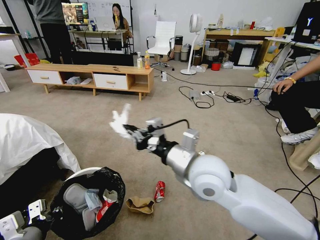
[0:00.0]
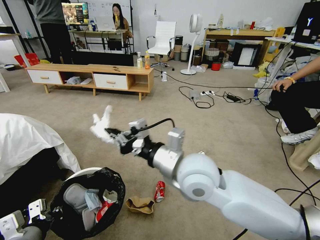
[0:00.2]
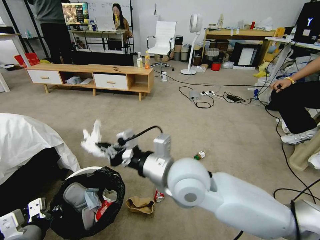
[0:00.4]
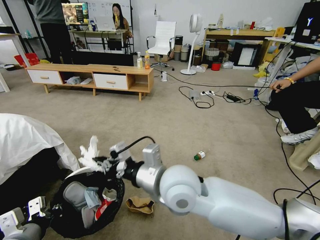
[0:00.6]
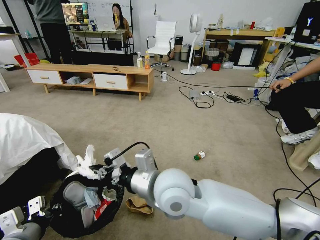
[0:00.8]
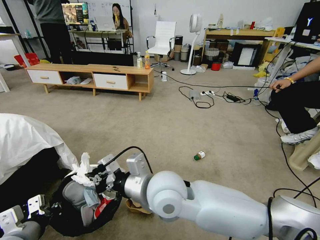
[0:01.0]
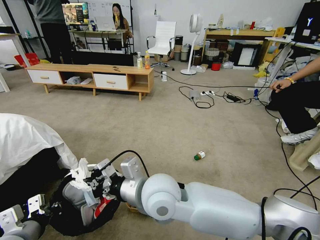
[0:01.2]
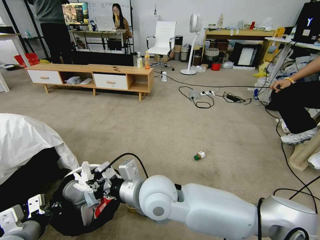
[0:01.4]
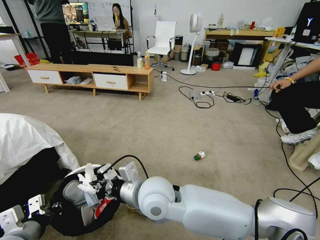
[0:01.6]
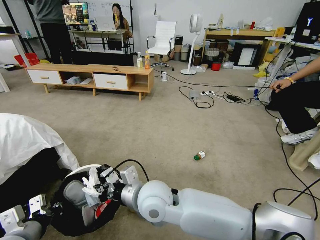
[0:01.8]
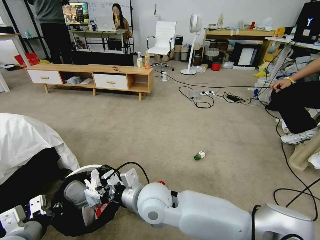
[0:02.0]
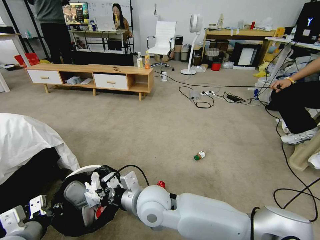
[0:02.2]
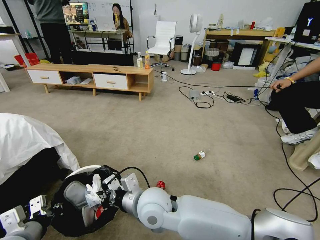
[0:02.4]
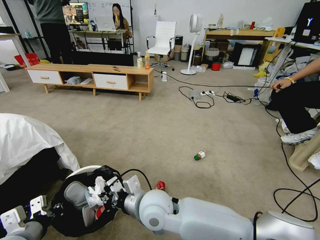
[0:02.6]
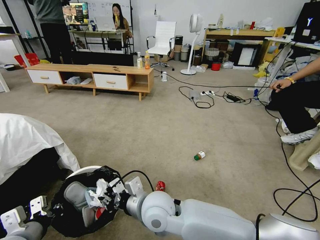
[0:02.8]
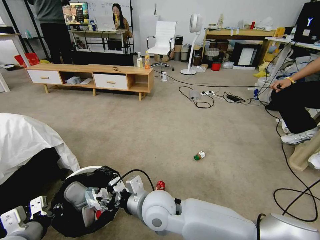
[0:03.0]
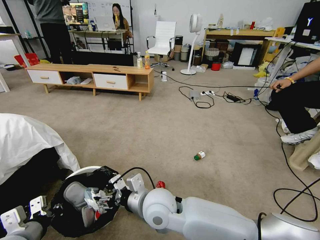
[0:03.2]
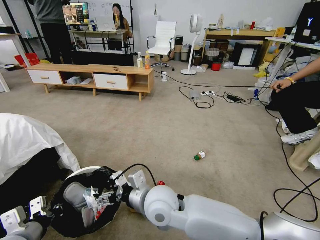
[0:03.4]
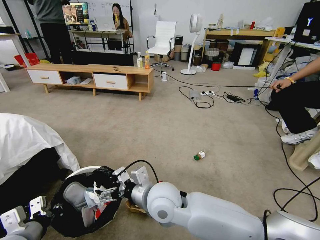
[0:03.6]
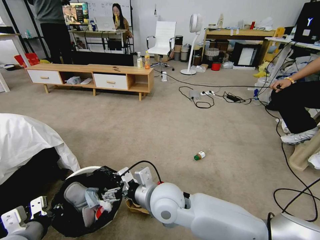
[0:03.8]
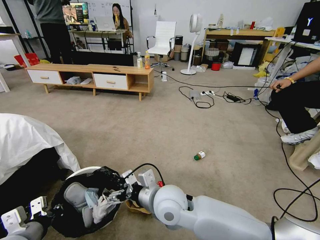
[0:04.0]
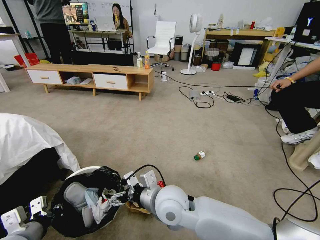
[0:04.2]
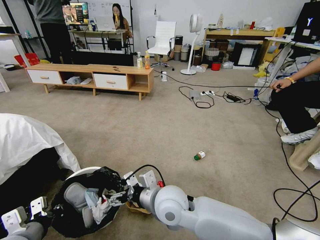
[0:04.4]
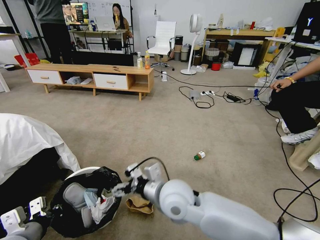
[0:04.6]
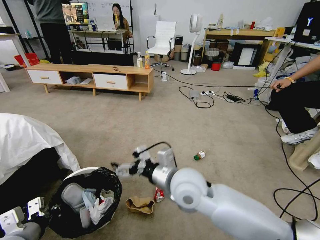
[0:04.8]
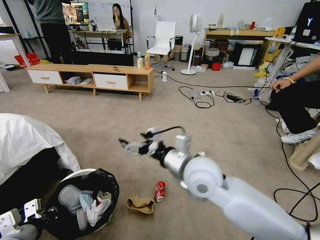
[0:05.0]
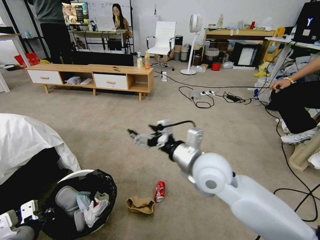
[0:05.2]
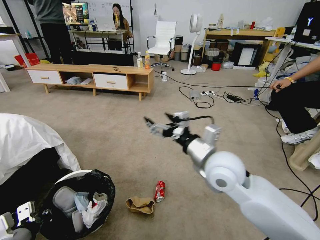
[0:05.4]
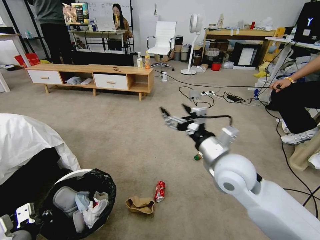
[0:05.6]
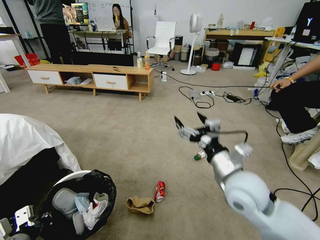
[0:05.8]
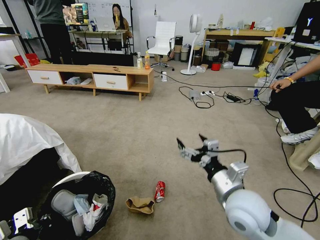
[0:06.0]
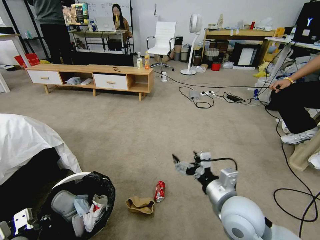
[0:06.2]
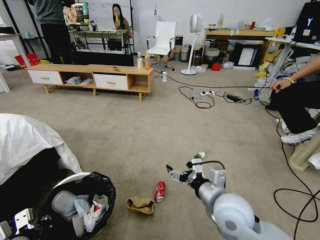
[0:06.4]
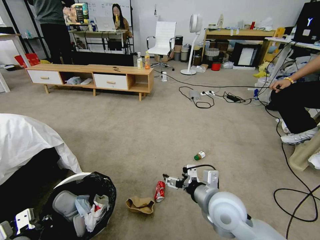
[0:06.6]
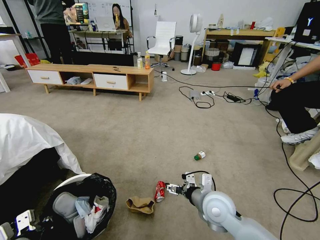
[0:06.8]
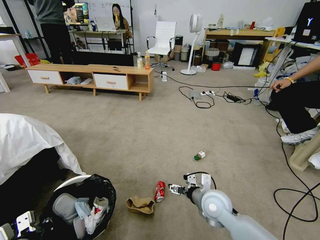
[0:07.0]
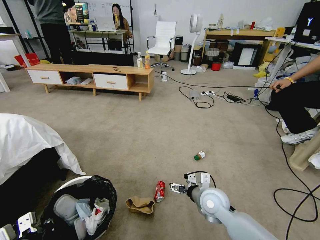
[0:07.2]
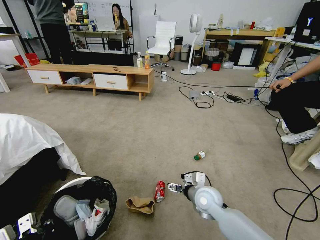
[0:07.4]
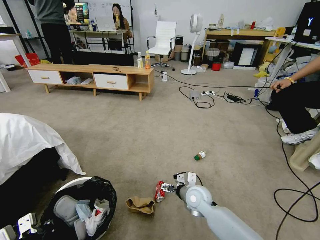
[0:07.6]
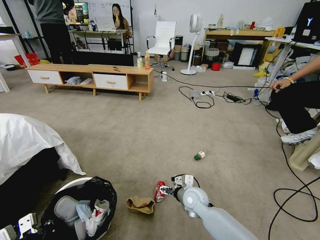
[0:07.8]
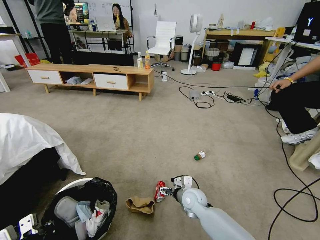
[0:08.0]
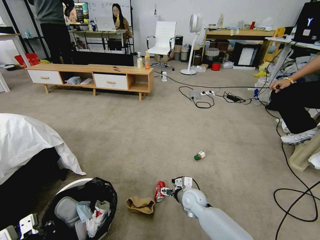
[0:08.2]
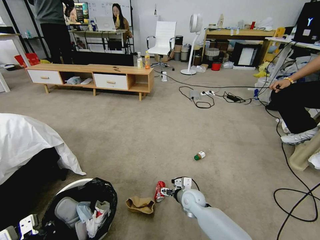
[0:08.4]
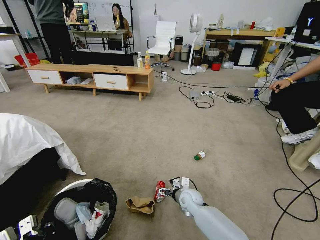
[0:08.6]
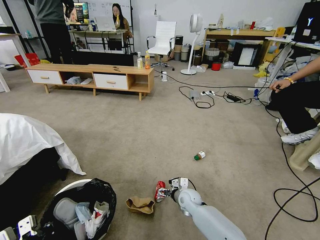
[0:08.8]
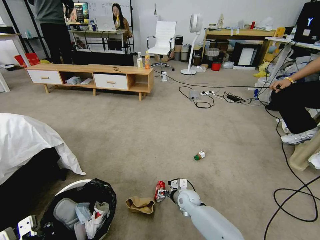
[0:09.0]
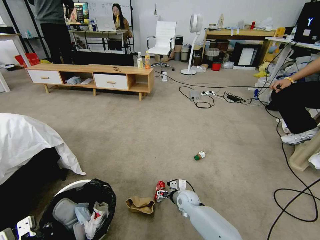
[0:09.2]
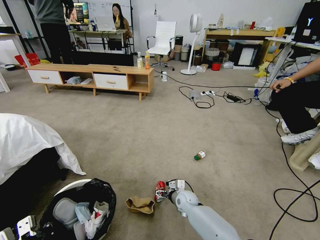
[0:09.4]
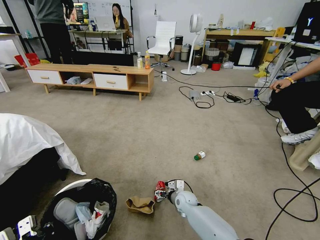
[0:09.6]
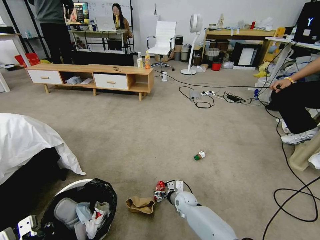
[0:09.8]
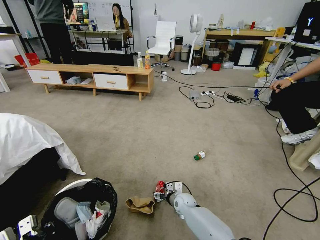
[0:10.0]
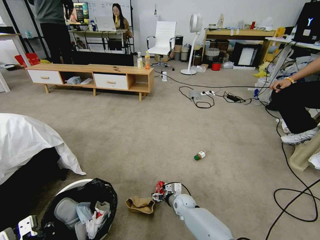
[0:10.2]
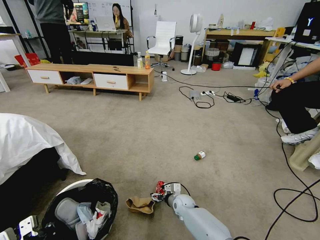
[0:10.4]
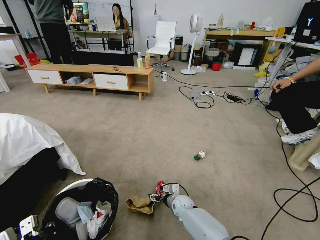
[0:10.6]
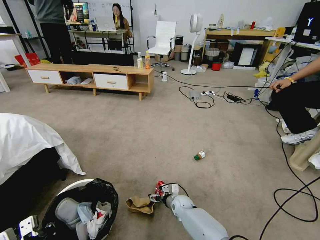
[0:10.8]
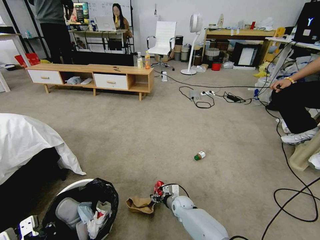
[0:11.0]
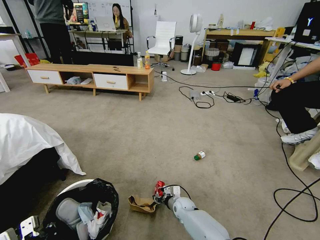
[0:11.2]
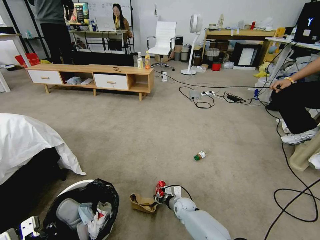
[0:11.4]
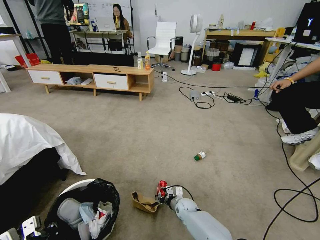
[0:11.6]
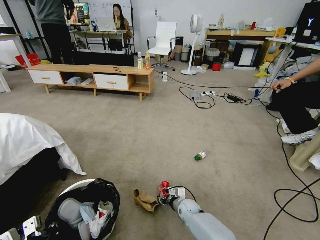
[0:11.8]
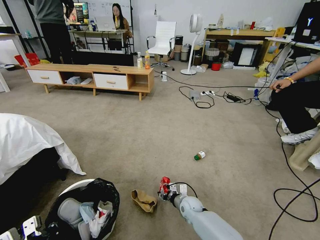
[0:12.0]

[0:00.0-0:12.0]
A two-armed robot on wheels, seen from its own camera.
Task of the whole recording: Pick up the trash bin and place the garbage on the floor into it.
0:00.0 to 0:01.6: The right gripper heads to the left and downward, covering some 15 cm.
0:01.6 to 0:03.0: The right gripper travels downward by approximately 5 cm, and opens.
0:03.0 to 0:04.4: The right gripper opens.
0:04.4 to 0:06.0: The right gripper moves to the right, roughly 20 cm.
0:06.0 to 0:07.6: The right gripper travels downward and forward by some 20 cm.
0:07.6 to 0:09.0: The right gripper shifts about 10 cm downward.
0:09.0 to 0:10.4: The right gripper shifts about 5 cm downward.
0:10.4 to 0:12.0: The right gripper closes.

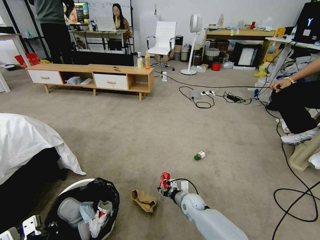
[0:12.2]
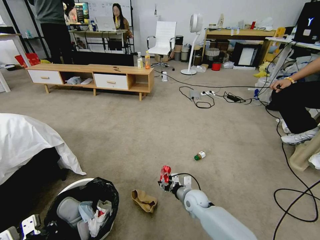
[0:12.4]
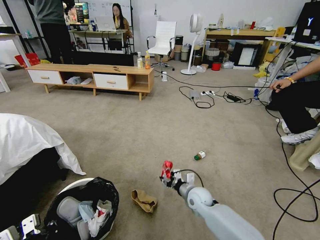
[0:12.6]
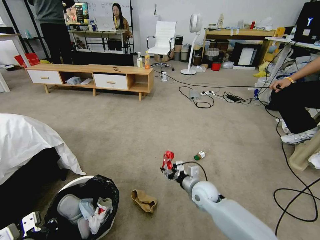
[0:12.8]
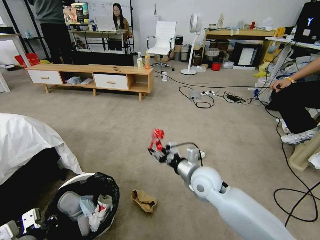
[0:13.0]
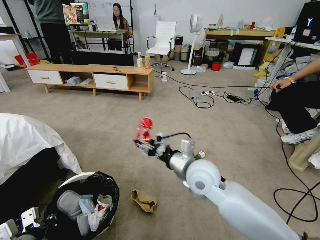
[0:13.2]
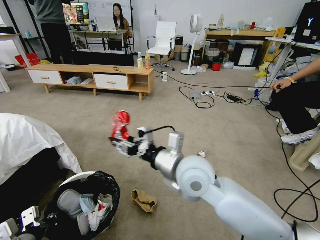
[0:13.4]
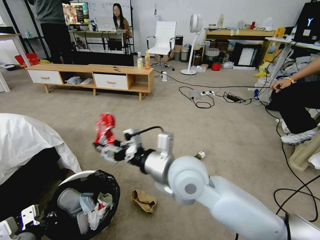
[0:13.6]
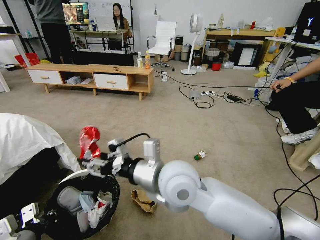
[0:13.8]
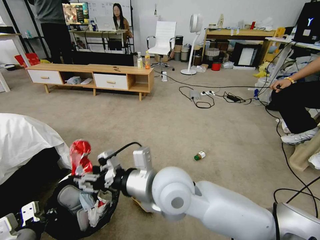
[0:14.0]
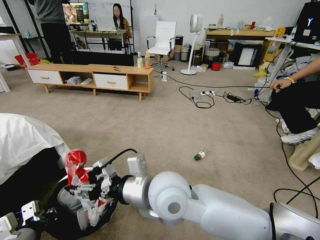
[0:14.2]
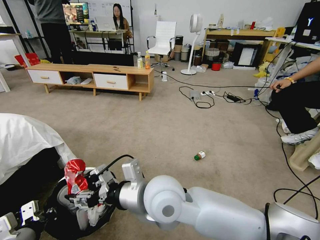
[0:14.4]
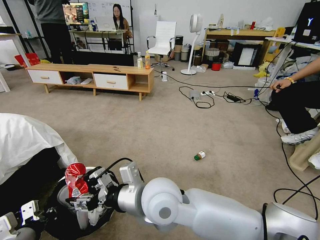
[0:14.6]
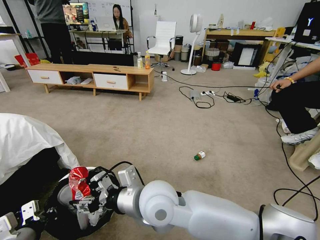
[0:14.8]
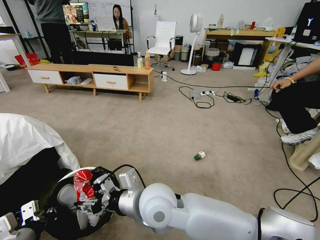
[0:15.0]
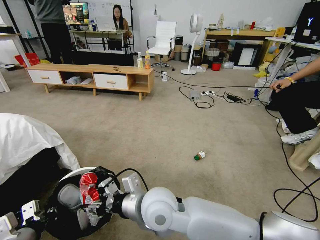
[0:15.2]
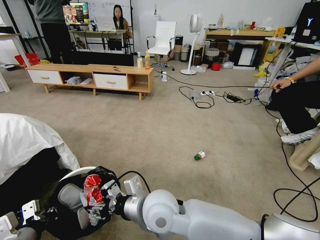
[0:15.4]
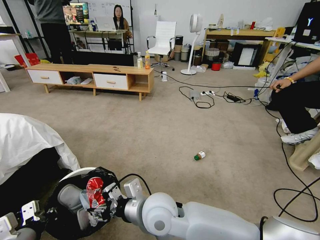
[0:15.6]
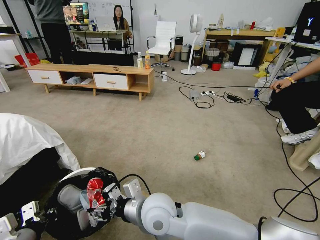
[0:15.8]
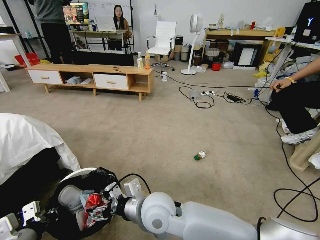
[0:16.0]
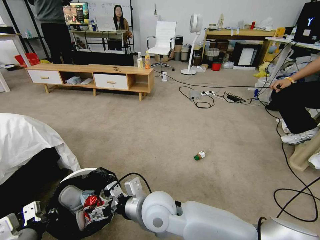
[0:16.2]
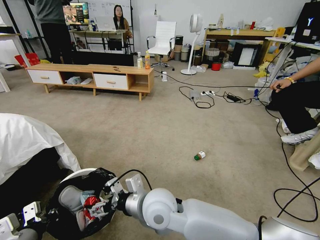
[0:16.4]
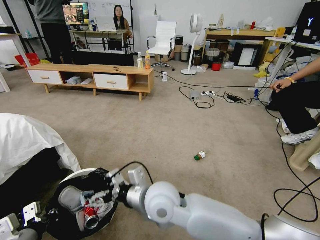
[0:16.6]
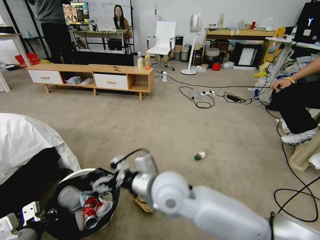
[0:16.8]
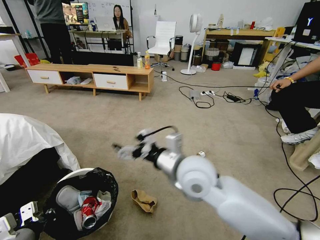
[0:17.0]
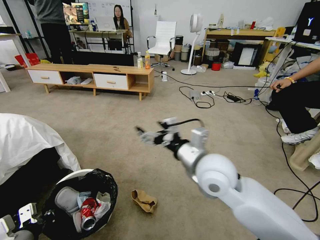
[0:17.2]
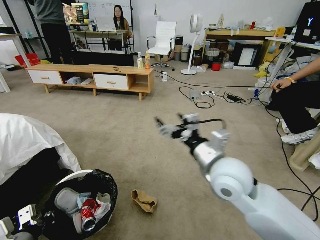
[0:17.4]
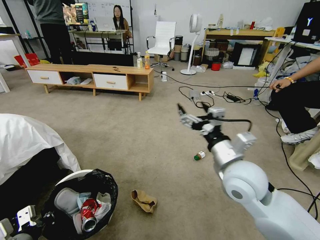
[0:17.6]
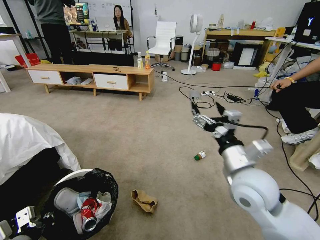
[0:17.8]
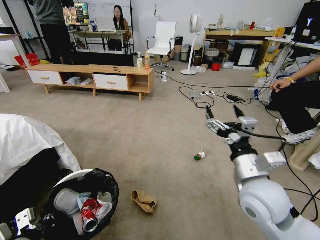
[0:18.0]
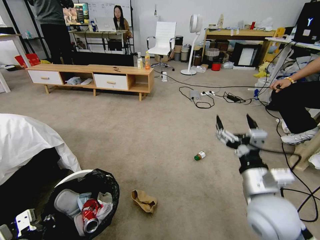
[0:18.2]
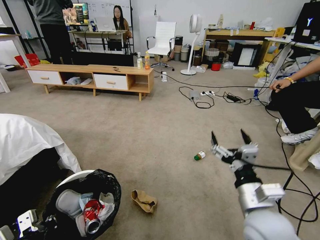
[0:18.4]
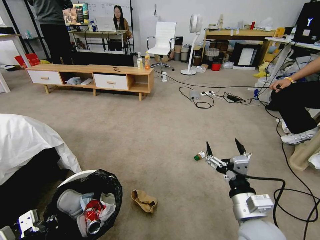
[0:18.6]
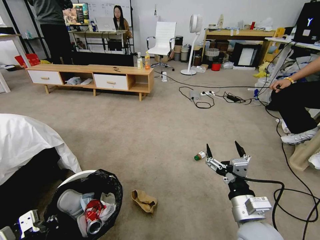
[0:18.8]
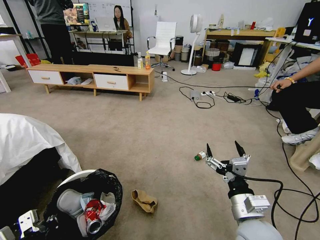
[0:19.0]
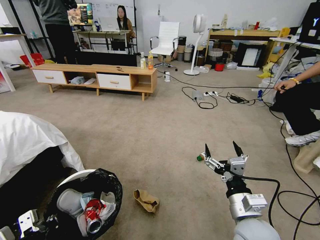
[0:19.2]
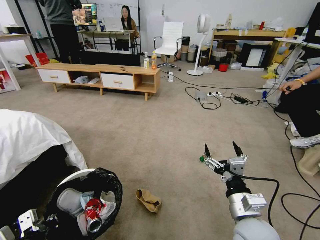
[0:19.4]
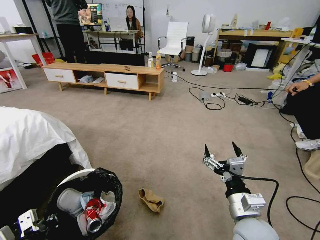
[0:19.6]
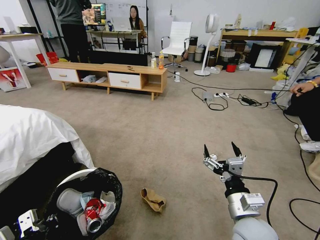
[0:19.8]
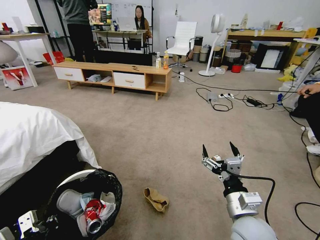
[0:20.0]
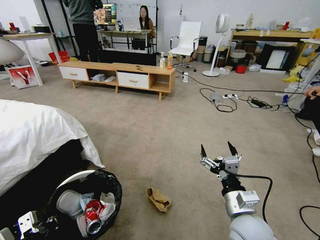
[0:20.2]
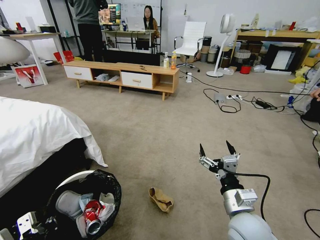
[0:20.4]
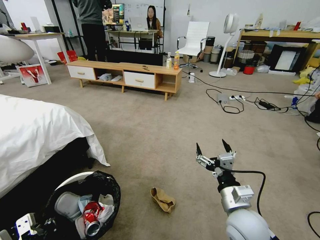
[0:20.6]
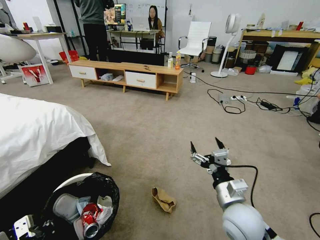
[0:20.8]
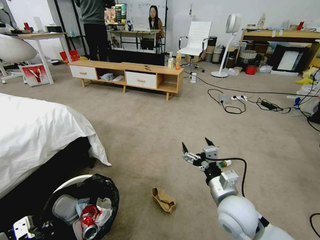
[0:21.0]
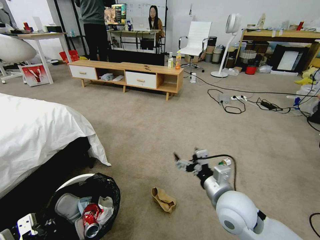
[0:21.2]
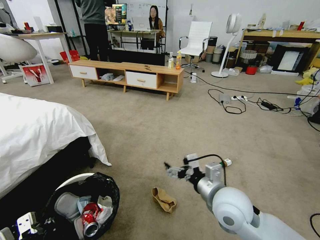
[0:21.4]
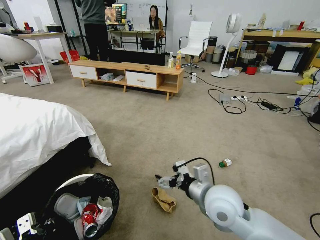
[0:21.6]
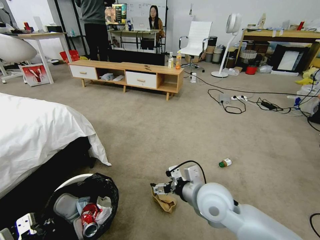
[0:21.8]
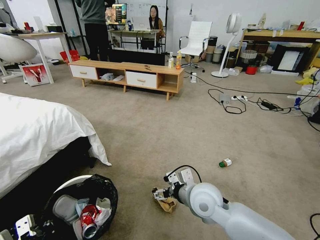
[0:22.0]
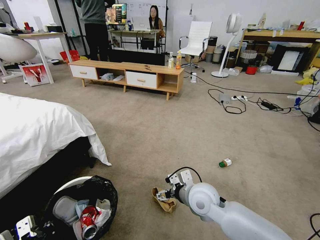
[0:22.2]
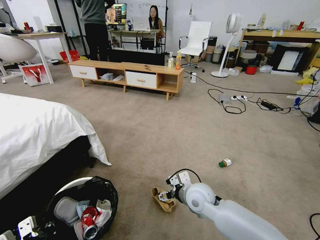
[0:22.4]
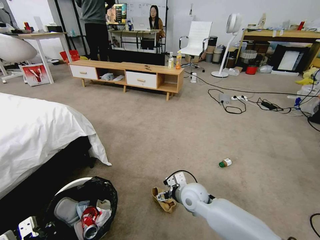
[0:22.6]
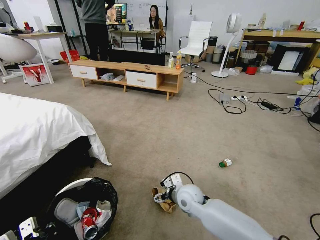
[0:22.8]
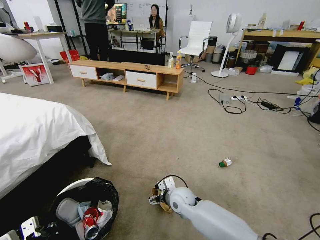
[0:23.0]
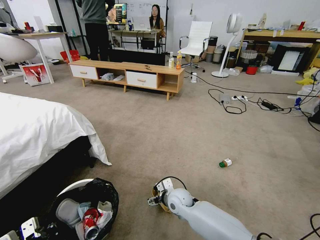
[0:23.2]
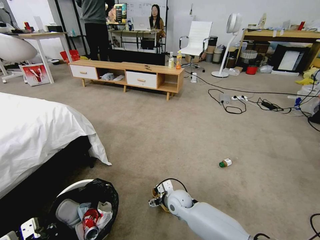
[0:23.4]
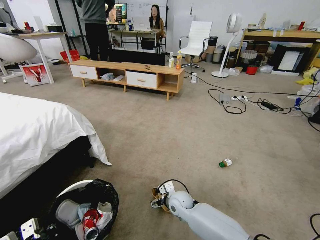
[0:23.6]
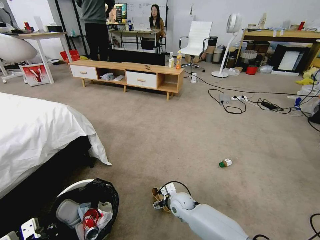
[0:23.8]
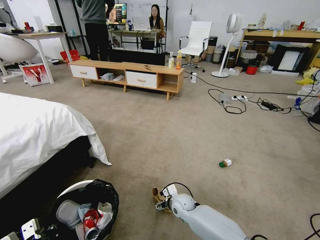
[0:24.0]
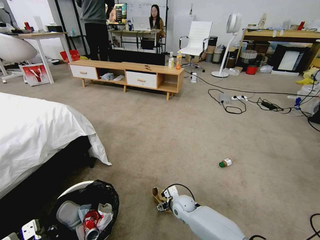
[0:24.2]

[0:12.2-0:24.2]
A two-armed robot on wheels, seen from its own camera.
Task of the whole recording: Pick up the trash bin and place the garbage on the floor into it.
0:12.2 to 0:13.8: The right gripper heads upward, covering roughly 35 cm.
0:13.8 to 0:15.2: The right gripper heads downward, covering about 10 cm.
0:15.2 to 0:16.6: The right gripper opens its fingers.
0:16.6 to 0:18.2: The right gripper shifts approximately 25 cm to the right.
0:18.2 to 0:19.8: The right gripper goes roughly 5 cm downward.
0:19.8 to 0:21.2: The right gripper goes about 5 cm forward.
0:21.2 to 0:22.6: The right gripper travels downward, forward and to the left by approximately 15 cm.
0:22.6 to 0:24.2: The right gripper goes some 15 cm downward.
